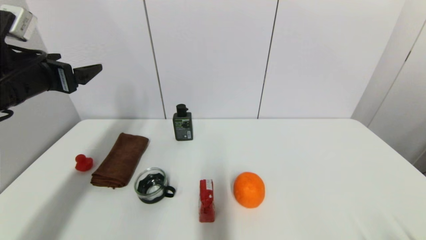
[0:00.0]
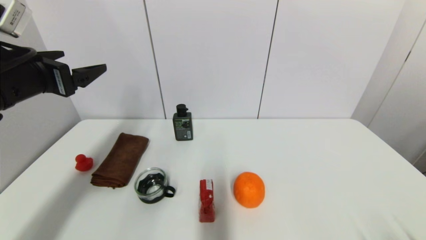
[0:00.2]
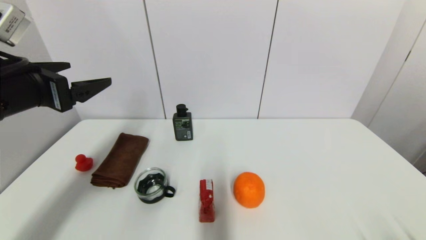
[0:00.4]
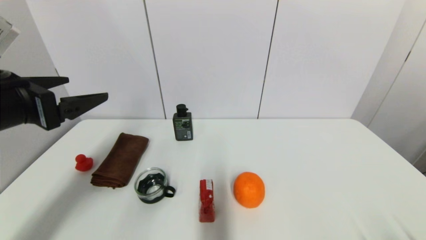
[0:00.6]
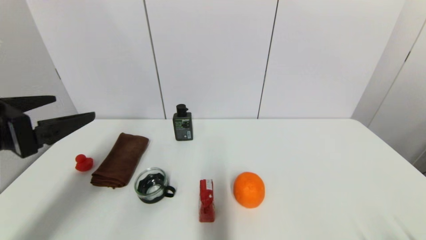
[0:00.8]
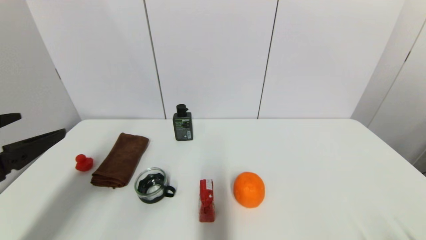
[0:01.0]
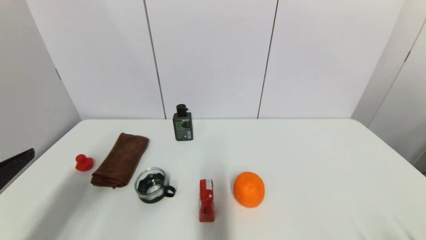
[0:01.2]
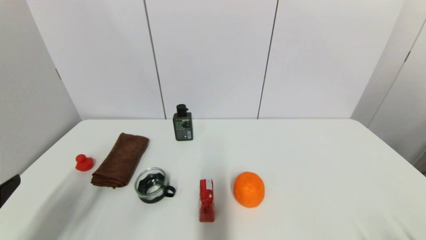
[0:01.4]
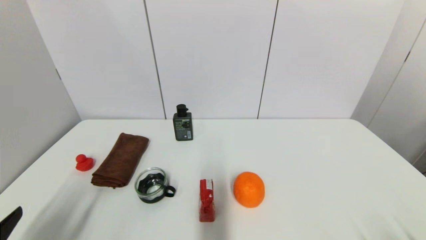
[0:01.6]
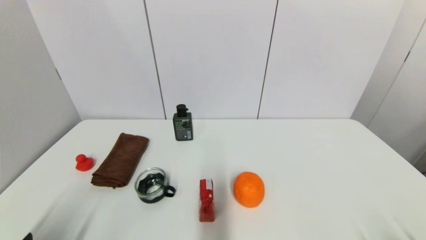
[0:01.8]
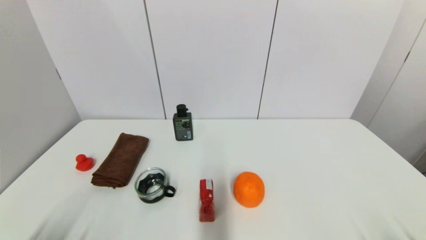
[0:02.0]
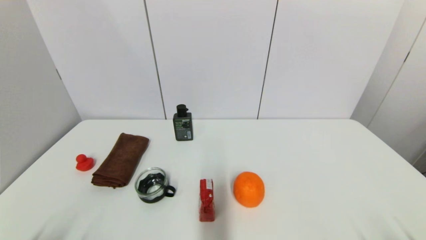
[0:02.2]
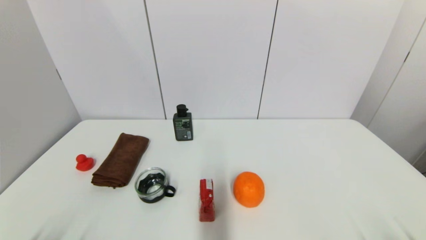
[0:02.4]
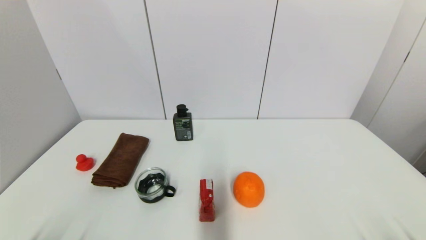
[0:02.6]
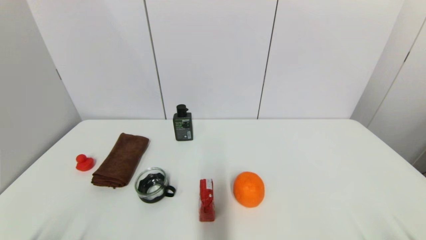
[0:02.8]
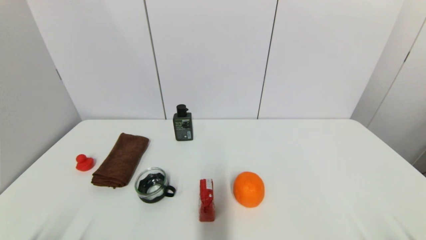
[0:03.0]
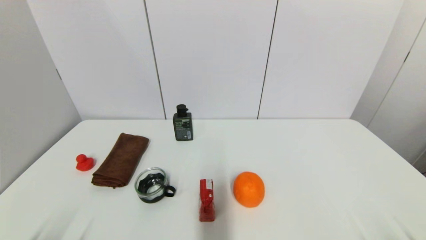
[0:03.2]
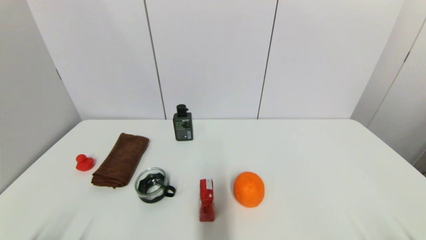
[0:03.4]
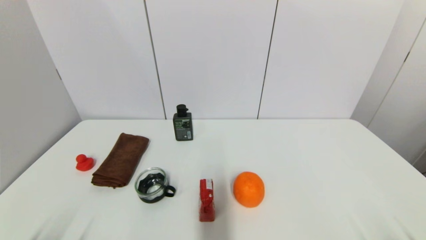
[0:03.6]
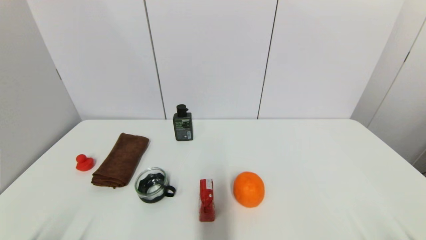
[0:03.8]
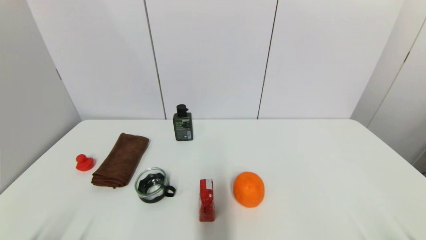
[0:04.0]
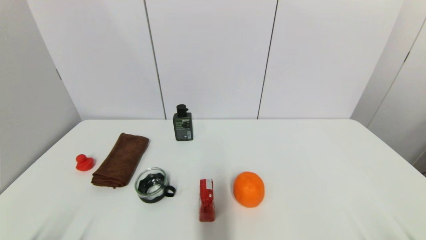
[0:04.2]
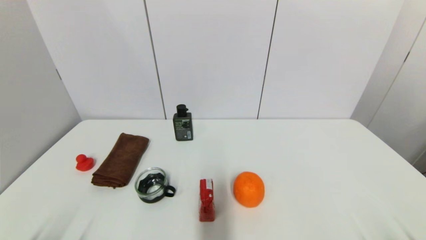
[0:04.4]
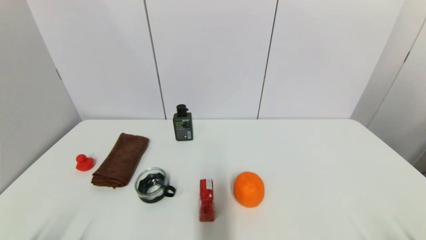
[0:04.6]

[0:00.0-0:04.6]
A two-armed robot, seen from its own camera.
0:00.0 to 0:01.6: The left gripper moves backward and downward, some 25 cm.
0:01.6 to 0:03.0: The left gripper goes approximately 10 cm downward.
0:03.0 to 0:04.6: Both grippers stay about where they are.
